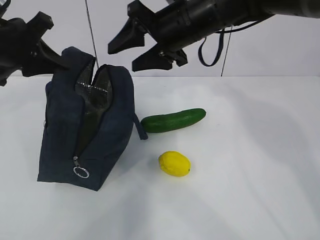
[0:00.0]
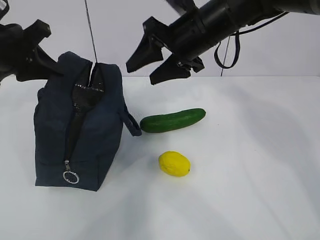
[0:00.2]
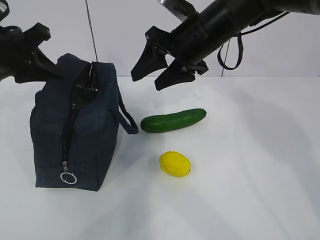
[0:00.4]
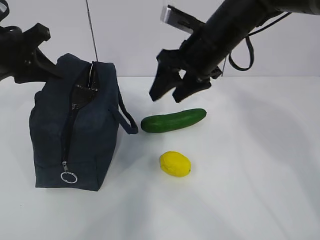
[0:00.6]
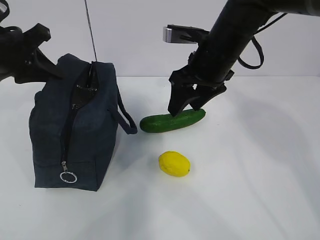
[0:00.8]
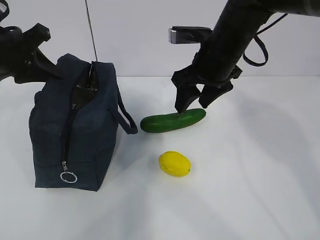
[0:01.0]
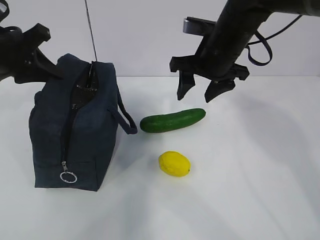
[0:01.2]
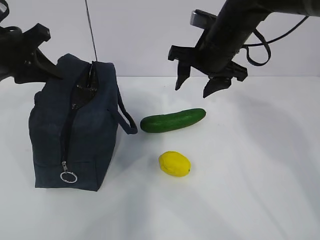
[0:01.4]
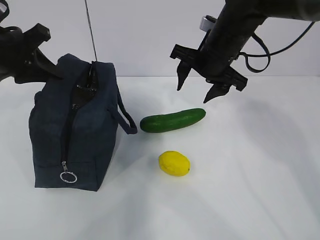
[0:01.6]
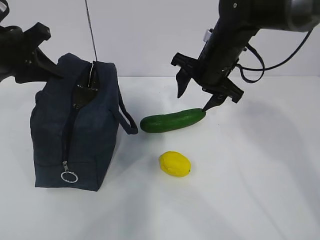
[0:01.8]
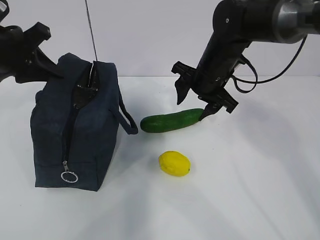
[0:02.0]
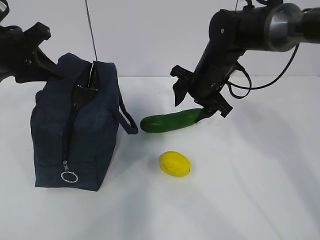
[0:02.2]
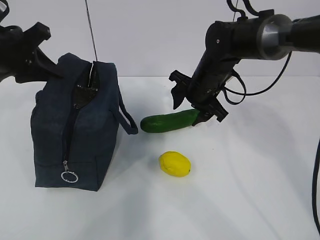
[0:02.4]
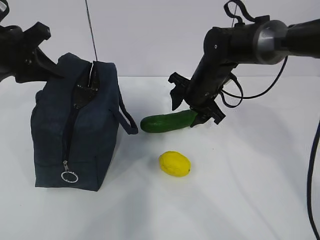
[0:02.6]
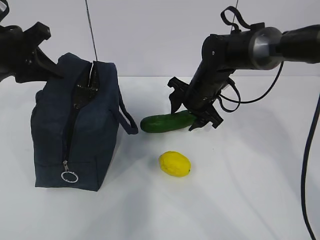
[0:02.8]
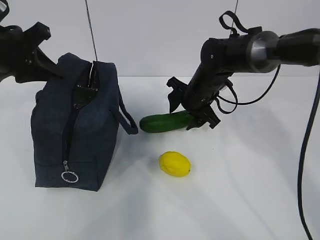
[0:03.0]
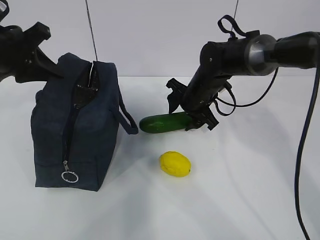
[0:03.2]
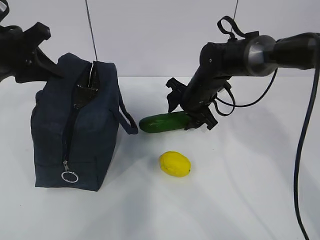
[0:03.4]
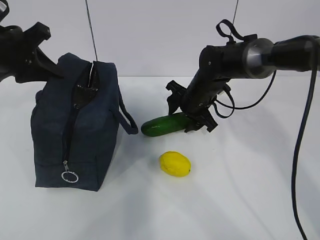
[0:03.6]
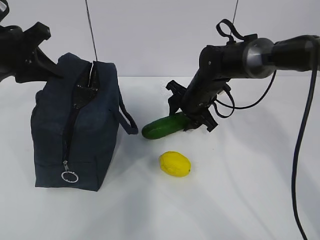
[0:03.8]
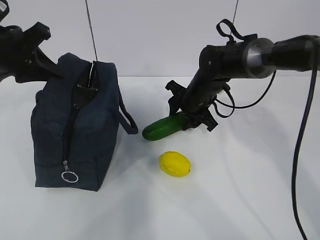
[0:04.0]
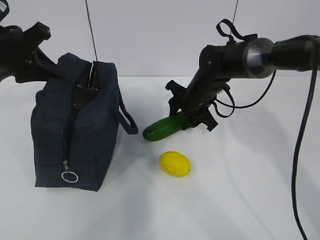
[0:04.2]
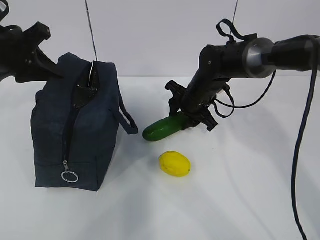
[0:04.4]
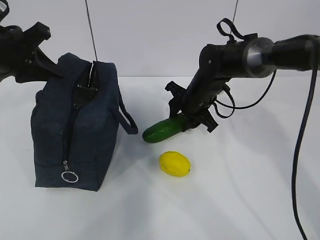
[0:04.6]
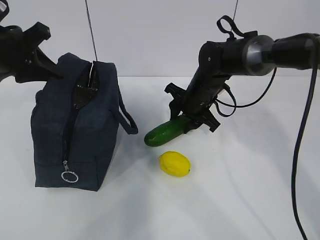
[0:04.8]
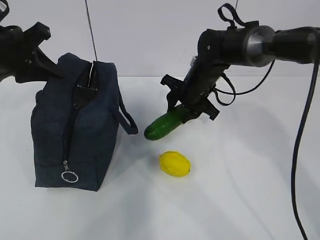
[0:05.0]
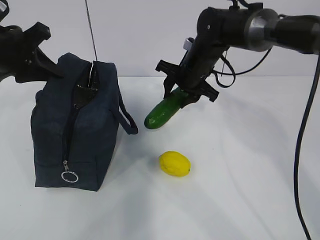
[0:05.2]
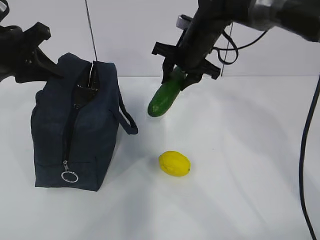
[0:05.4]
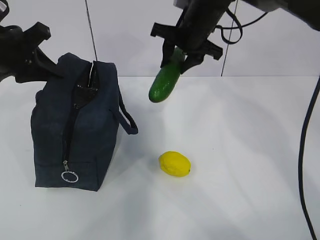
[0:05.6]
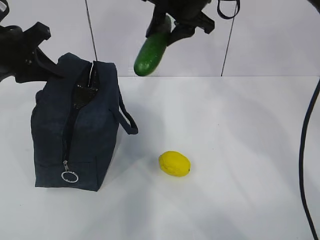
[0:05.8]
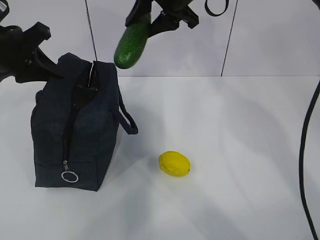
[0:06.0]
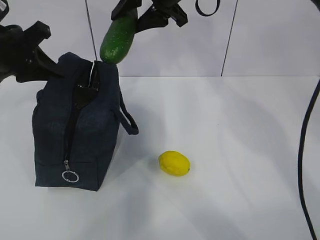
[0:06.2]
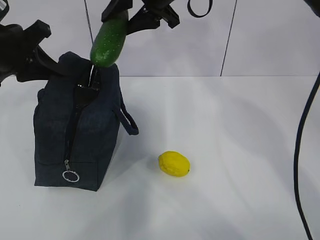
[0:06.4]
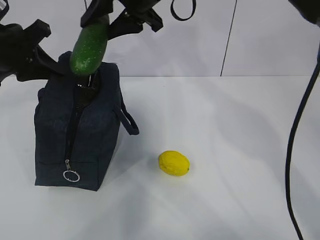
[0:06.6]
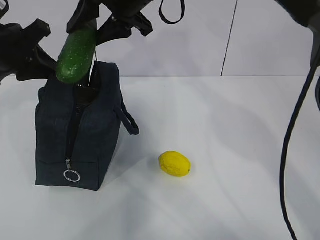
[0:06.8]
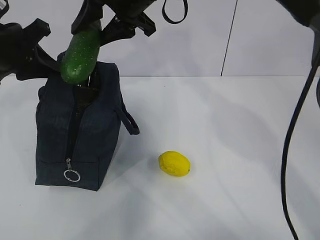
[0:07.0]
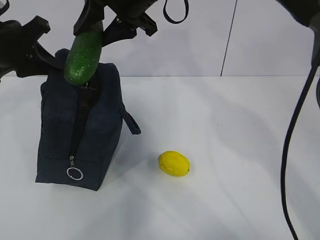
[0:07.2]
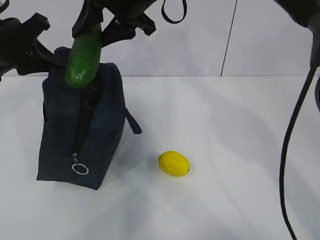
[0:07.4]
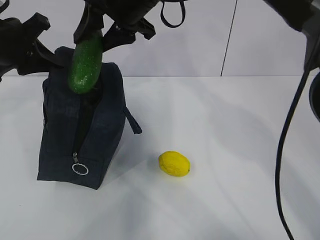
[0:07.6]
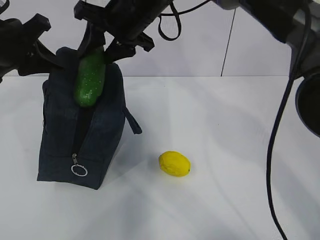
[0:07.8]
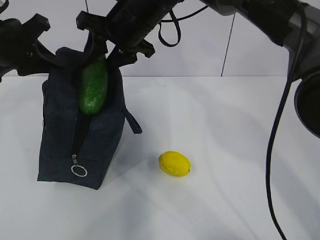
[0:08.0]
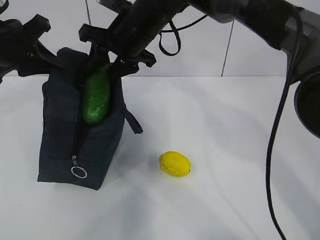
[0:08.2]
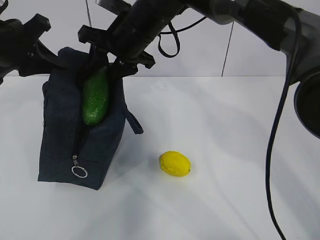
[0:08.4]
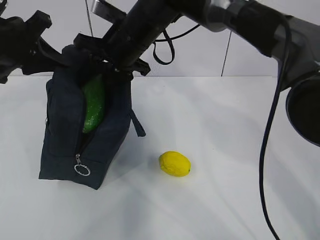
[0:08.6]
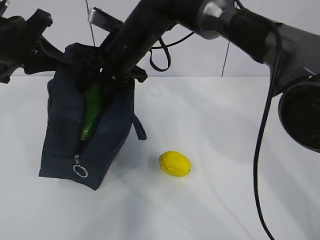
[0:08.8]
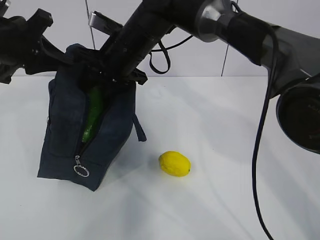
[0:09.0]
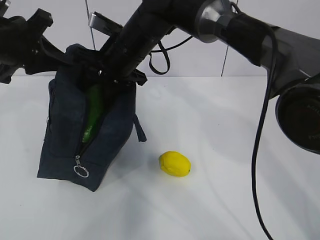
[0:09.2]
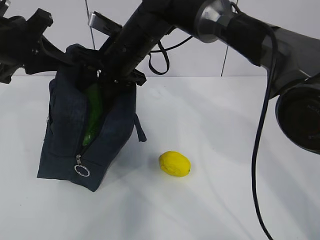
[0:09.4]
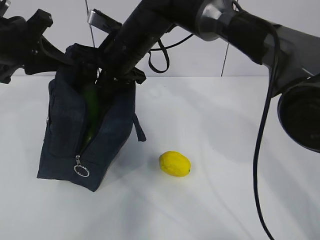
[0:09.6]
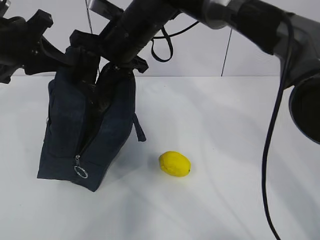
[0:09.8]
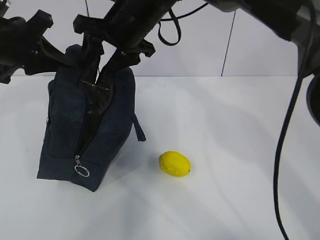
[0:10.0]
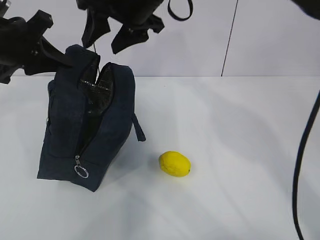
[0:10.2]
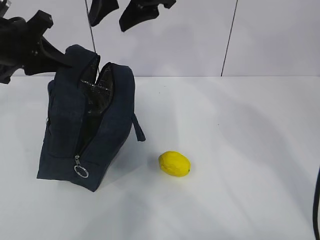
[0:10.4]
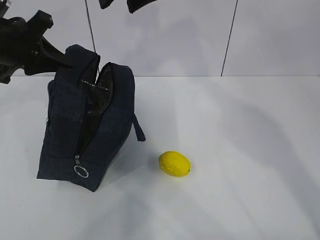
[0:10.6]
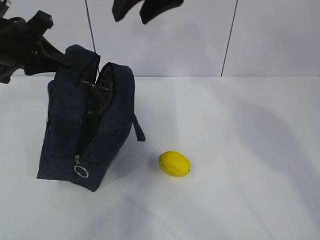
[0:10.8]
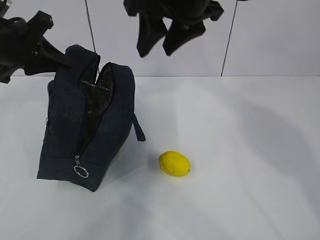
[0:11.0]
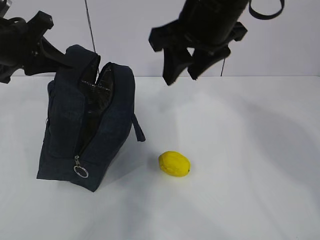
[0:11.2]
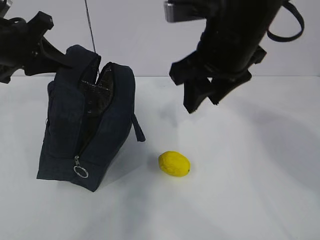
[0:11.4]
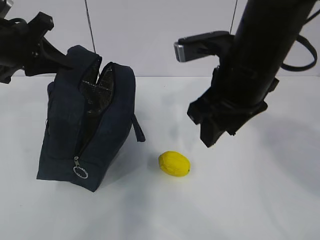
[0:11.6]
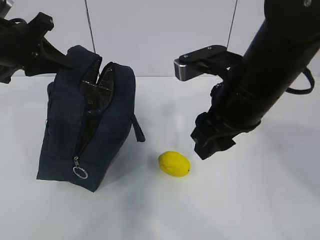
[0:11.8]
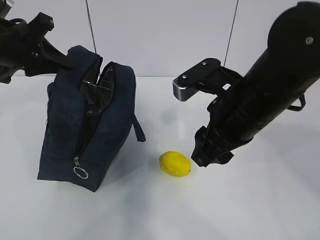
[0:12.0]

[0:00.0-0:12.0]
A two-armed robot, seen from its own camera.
Step, 0:00.0 to 0:03.8: Place it into the bag with your right hand.
Step, 0:04.0 to 0:07.4: Grab the lemon with your right hand.
Step, 0:10.0 to 0:11.6: Grab the lunch bag with your right hand.
0:00.0 to 0:01.6: The right gripper heads to the right, covering some 5 cm.
0:01.6 to 0:03.0: The right gripper goes roughly 10 cm downward.
0:03.0 to 0:04.4: There are only small adjustments of the grippers.
0:04.4 to 0:06.0: The right gripper is displaced upward by approximately 20 cm.
0:06.0 to 0:07.6: The right gripper goes about 5 cm to the left.
0:07.6 to 0:09.0: The right gripper shifts approximately 10 cm downward.
0:09.0 to 0:10.4: The right gripper moves upward, some 15 cm.
0:10.4 to 0:12.0: The right gripper shifts some 20 cm downward, backward and to the right.

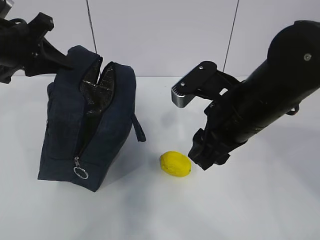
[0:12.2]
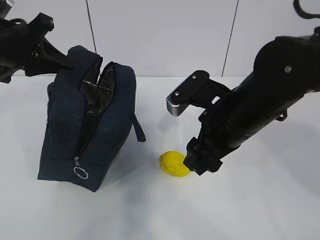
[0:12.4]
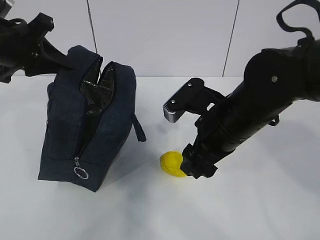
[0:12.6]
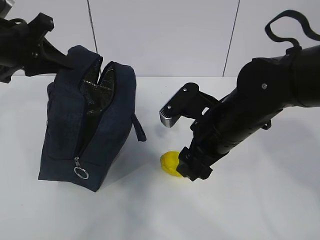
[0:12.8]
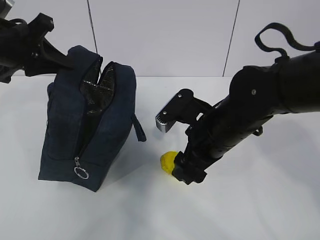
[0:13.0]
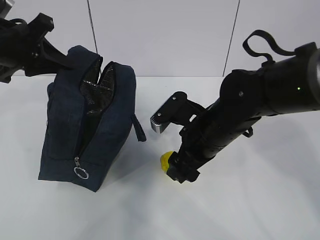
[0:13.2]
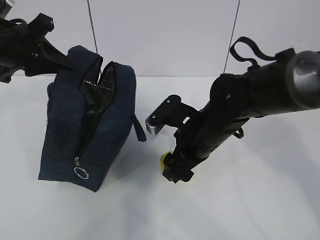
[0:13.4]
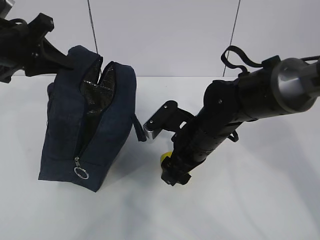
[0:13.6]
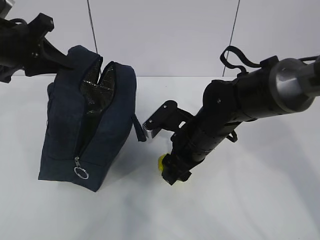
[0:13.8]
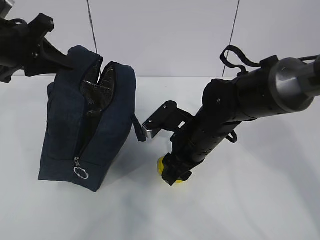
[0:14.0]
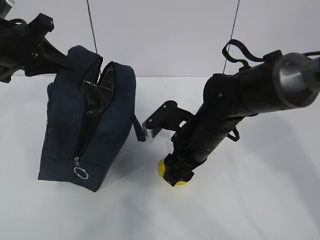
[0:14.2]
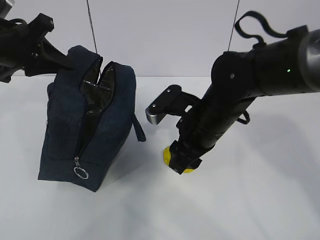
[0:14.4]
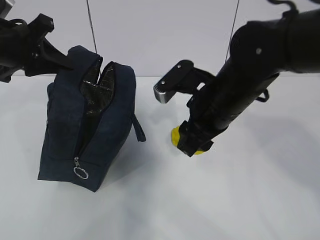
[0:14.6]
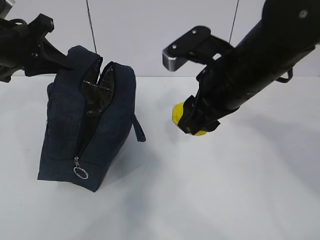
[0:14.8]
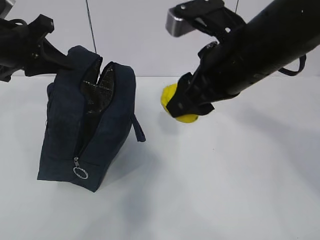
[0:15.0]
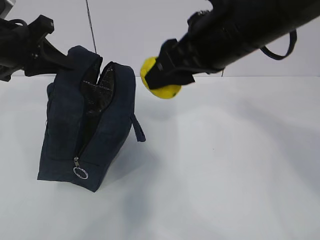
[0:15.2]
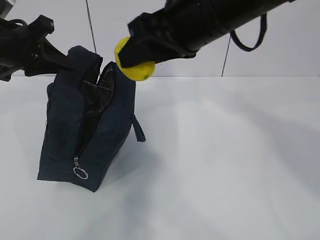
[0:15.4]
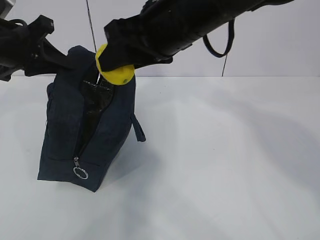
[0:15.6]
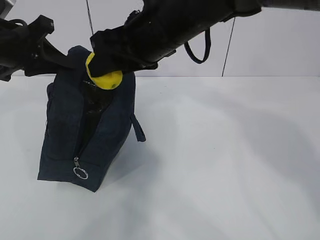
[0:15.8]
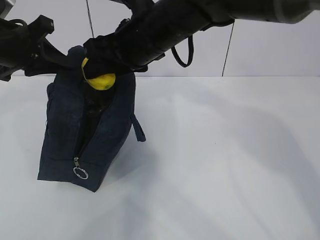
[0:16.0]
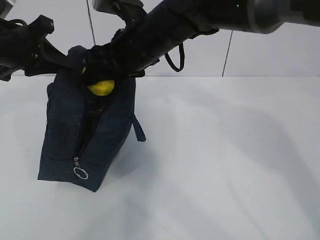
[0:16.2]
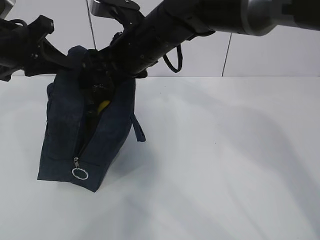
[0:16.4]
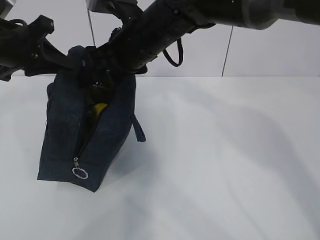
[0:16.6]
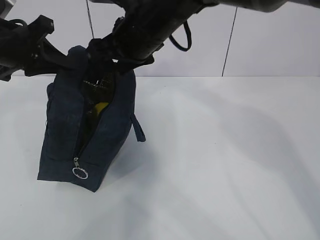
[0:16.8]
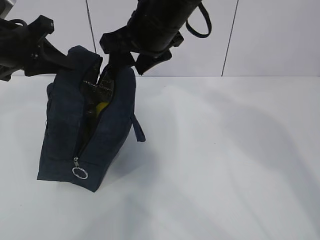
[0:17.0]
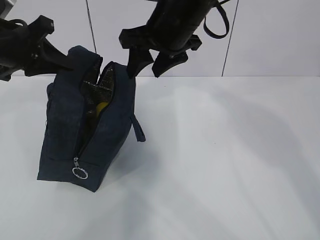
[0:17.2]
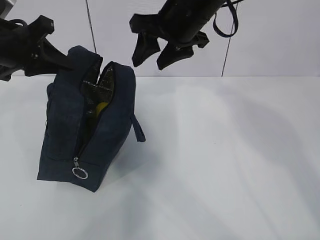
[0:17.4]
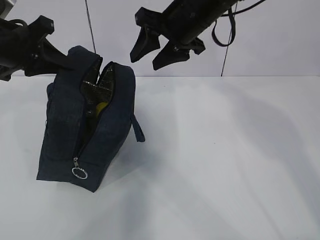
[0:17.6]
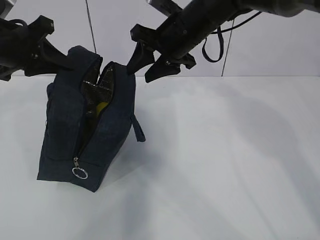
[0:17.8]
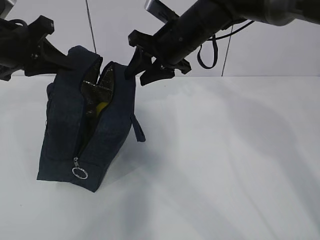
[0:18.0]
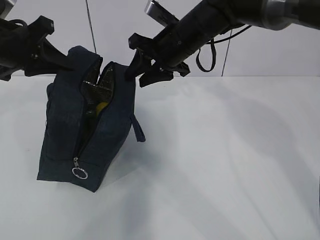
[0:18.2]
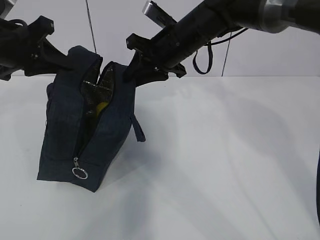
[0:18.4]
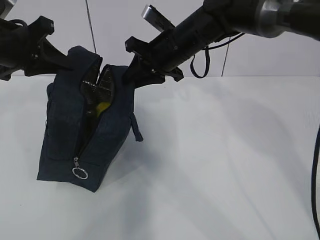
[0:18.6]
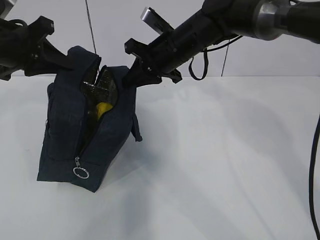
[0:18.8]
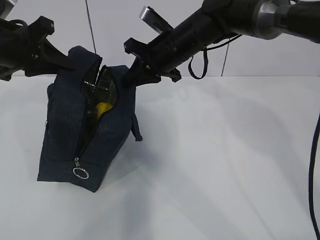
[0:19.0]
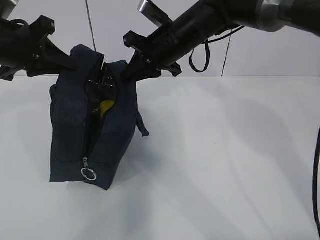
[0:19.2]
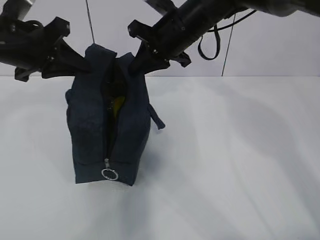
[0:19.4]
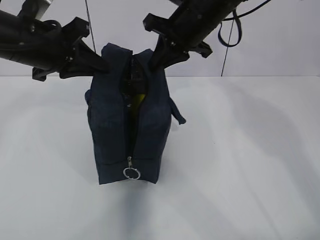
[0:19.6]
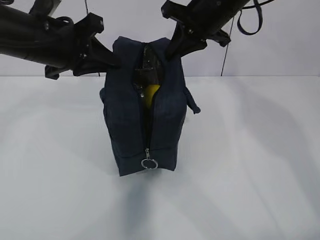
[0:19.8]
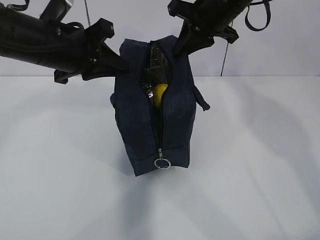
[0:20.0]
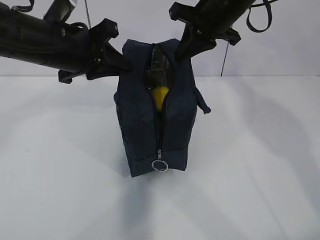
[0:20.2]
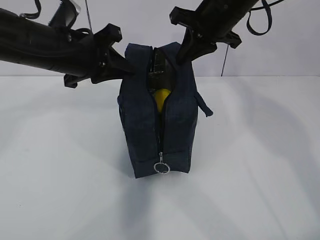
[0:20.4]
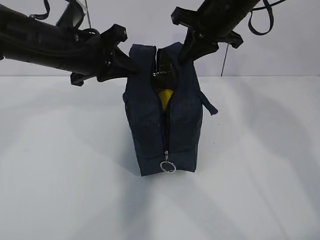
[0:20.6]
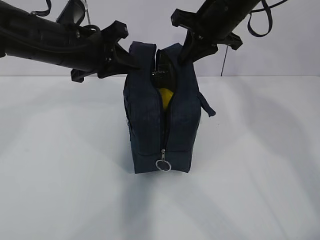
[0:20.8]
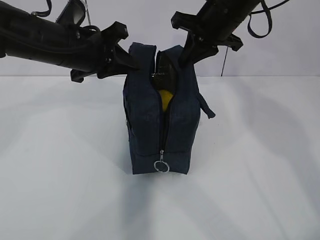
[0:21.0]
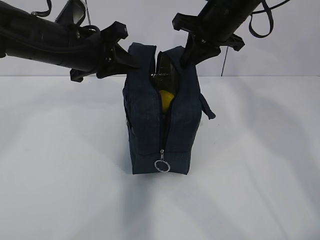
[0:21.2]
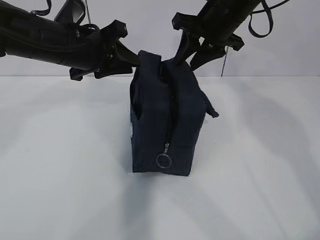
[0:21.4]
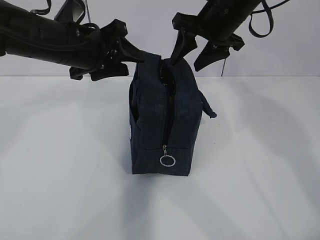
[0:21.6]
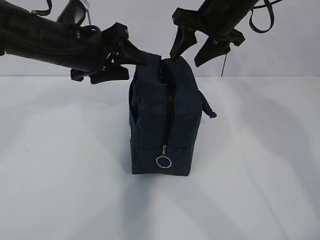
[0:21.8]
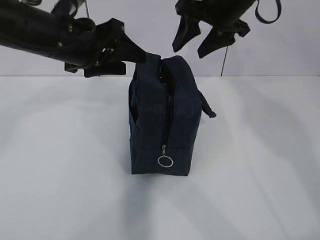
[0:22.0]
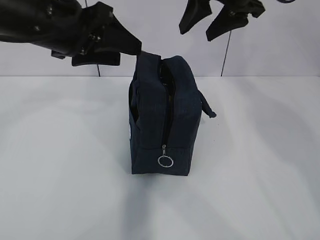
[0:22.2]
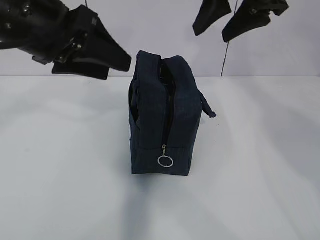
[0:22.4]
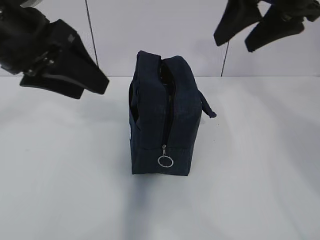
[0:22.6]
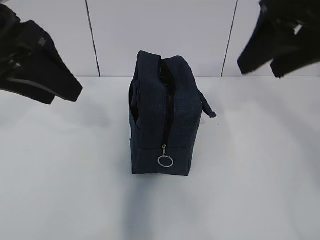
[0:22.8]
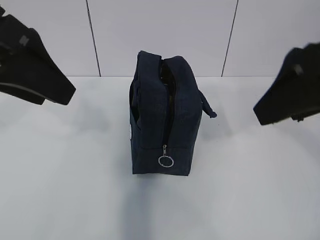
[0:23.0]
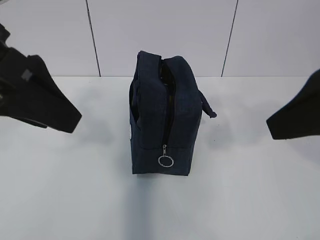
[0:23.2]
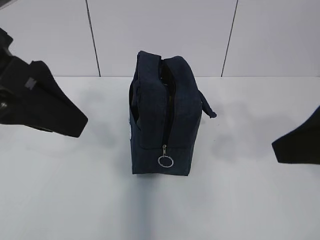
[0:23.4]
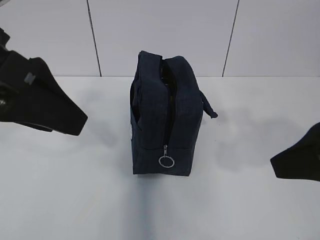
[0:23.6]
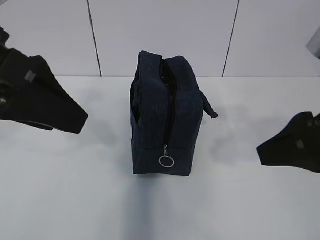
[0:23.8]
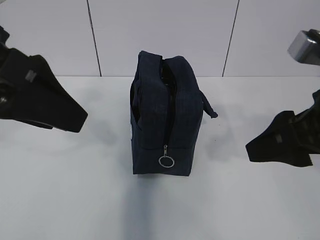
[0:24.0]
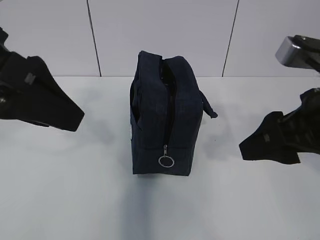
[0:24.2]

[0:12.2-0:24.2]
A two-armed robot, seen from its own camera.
Step, 0:12.2 to 0:13.8: Move the lunch bag to the right.
0:12.2 to 0:13.8: The right gripper goes roughly 10 cm downward and forward.
0:13.8 to 0:15.2: The right gripper moves upward, approximately 20 cm.
0:15.2 to 0:16.6: The right gripper goes roughly 15 cm forward, to the left and downward.
0:16.6 to 0:18.2: The right gripper travels to the right and forward by some 10 cm, and closes up.
0:18.2 to 0:19.8: The right gripper goes some 10 cm upward and to the right, and closes its fingers. The left gripper shifts about 10 cm to the right.
0:19.8 to 0:21.2: The grippers move only a little.
0:21.2 to 0:22.6: Both grippers travel together backward and upward, some 15 cm. The right gripper opens up. The left gripper opens up.
0:22.6 to 0:24.2: The right gripper is displaced backward and downward by approximately 15 cm; the left gripper shifts approximately 10 cm backward.
